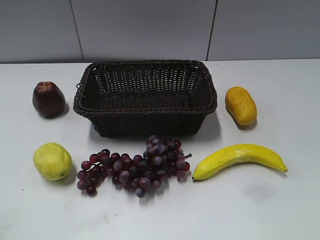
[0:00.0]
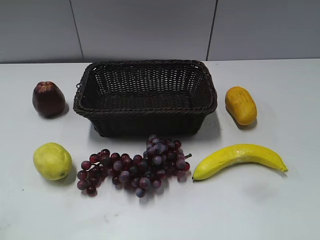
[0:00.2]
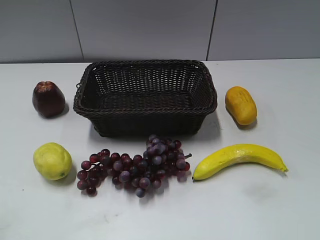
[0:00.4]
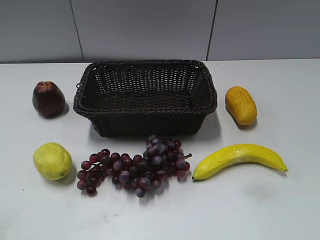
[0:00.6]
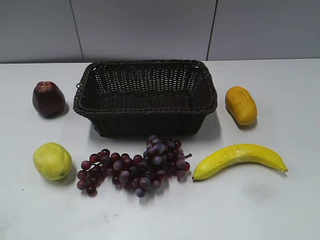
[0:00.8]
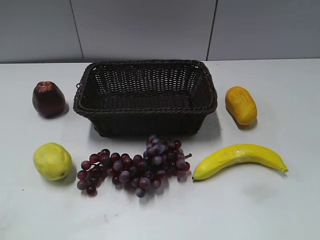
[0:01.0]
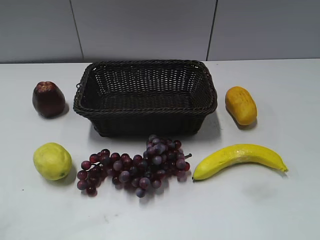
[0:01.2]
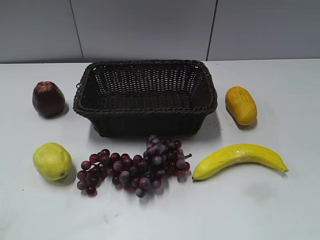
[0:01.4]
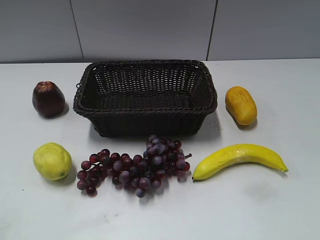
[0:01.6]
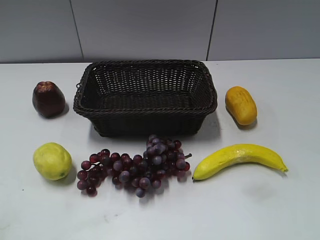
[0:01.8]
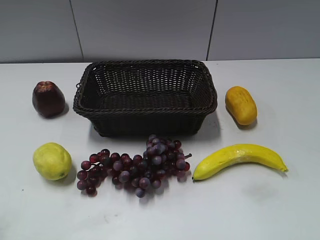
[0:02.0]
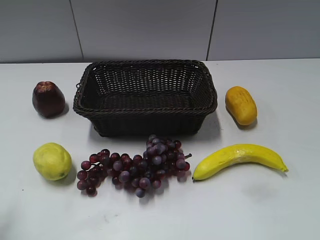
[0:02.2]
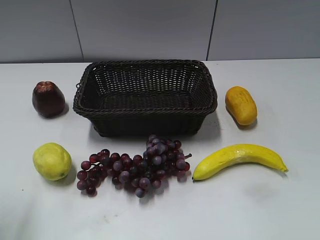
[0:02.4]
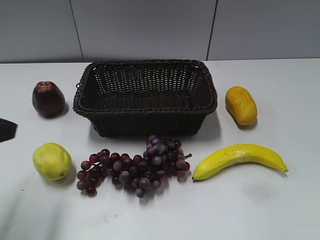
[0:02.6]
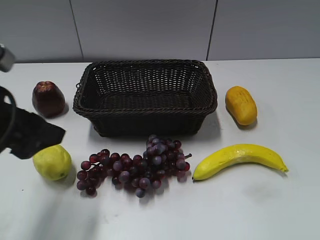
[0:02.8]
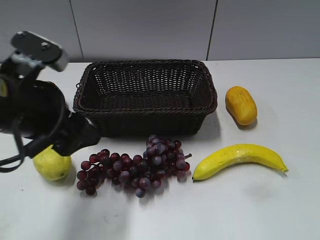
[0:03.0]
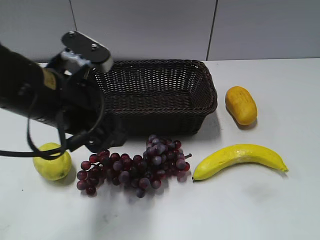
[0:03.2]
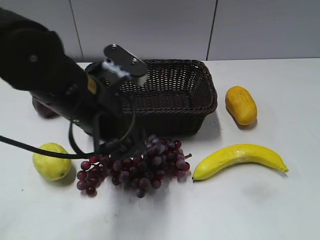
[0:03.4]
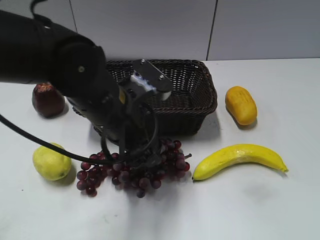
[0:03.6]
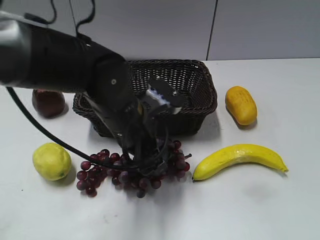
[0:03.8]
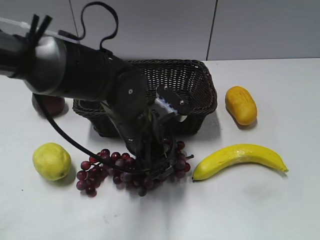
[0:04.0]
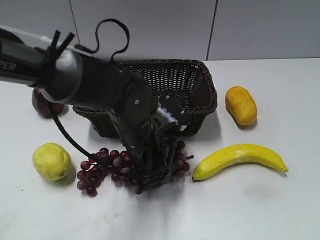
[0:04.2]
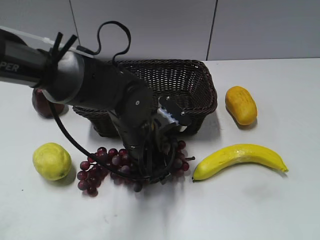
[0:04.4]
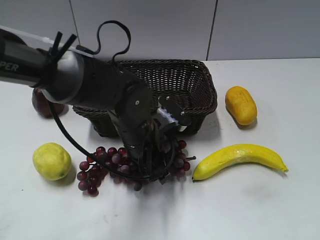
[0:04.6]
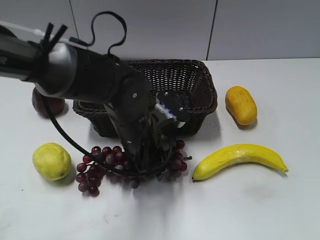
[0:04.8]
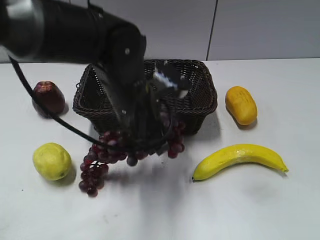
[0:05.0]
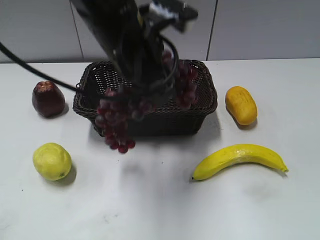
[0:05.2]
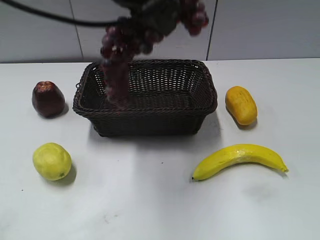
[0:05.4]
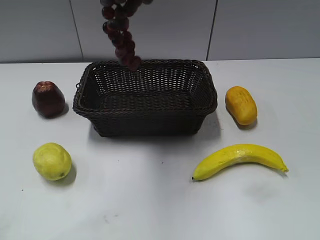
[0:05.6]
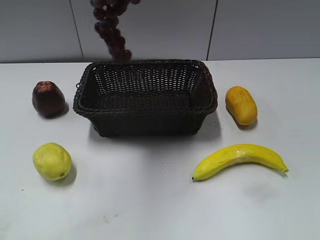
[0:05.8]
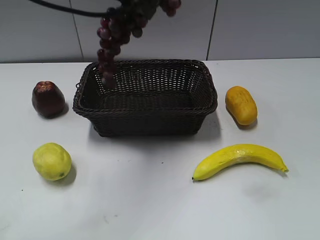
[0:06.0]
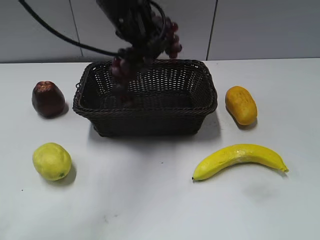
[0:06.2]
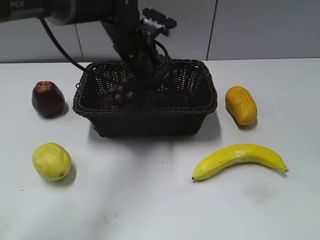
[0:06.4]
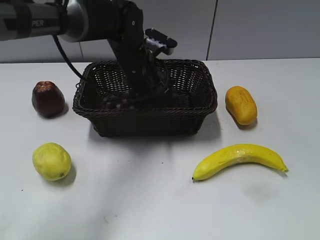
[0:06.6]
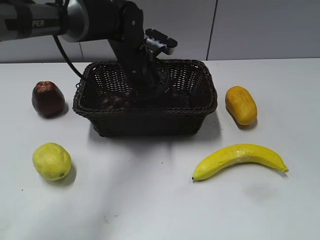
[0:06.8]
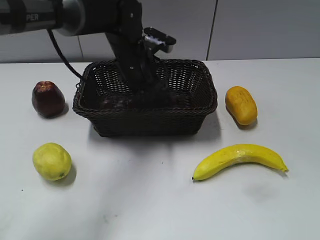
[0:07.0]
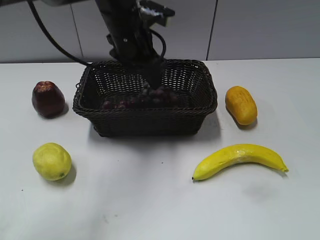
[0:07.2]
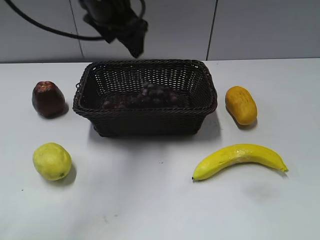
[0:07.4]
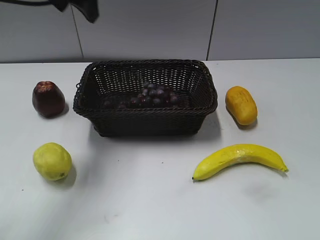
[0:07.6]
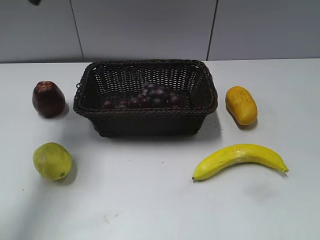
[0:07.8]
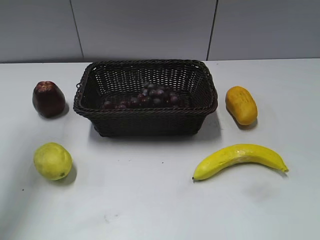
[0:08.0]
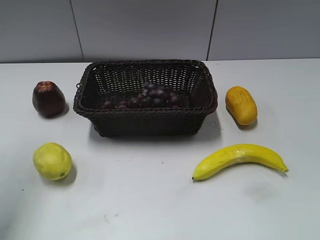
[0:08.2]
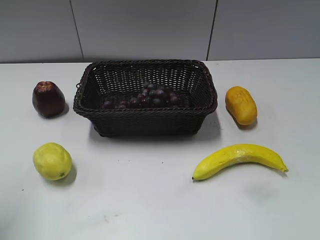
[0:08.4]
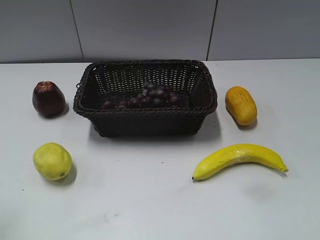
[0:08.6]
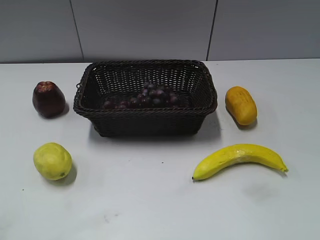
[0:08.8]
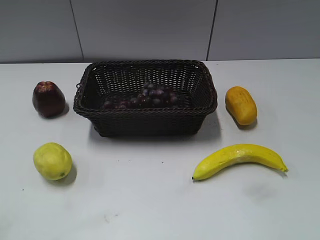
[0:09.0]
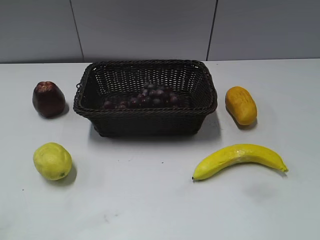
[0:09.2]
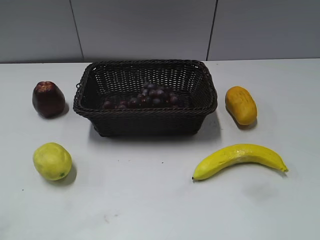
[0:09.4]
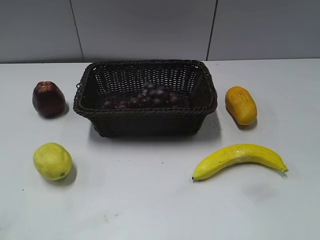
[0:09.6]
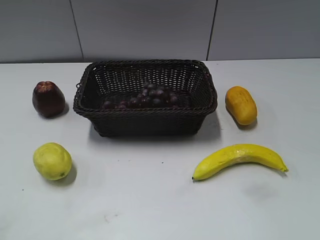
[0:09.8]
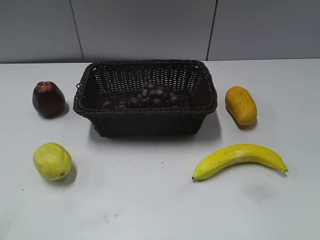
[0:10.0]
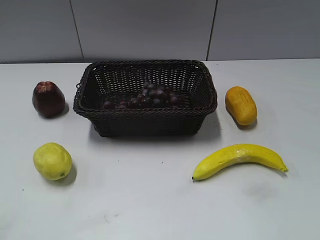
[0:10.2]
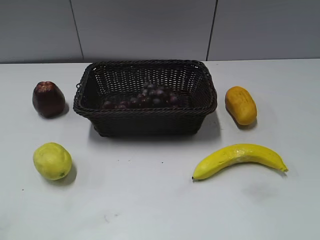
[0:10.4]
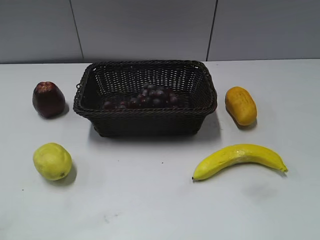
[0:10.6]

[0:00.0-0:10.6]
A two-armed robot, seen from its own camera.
Step, 0:02.6 to 0:04.4: Grasp the grape with left gripper.
Step, 0:04.6 to 0:06.8: Place the grape in the basket with left gripper.
0:01.6 to 0:03.0: The left gripper is displaced forward and to the right by some 25 cm.
0:03.0 to 0:04.6: The left gripper goes approximately 20 cm to the right, downward and forward, and closes its fingers.
0:04.6 to 0:06.0: The left gripper heads upward and forward, covering approximately 25 cm.
0:06.0 to 0:07.6: The left gripper moves to the left, approximately 10 cm, travels downward and back again, approximately 15 cm each way, and opens.
0:07.6 to 0:09.0: The left gripper moves backward and to the left, about 40 cm.
